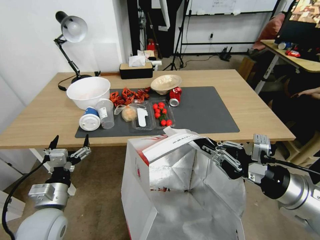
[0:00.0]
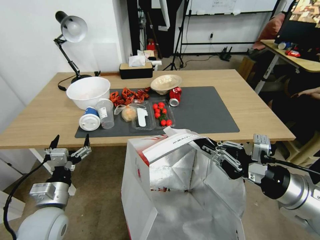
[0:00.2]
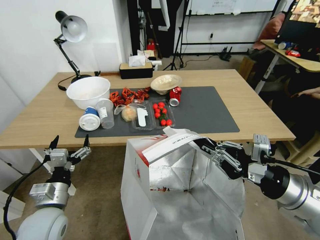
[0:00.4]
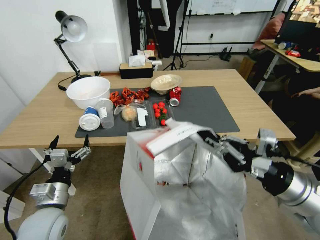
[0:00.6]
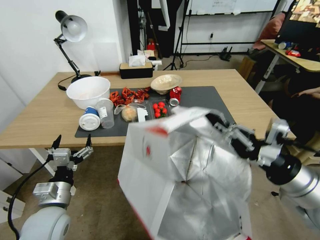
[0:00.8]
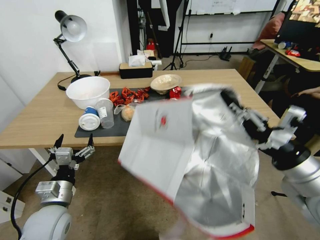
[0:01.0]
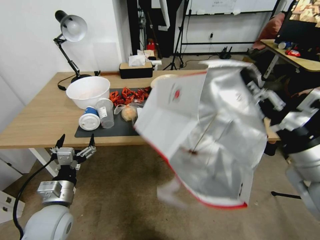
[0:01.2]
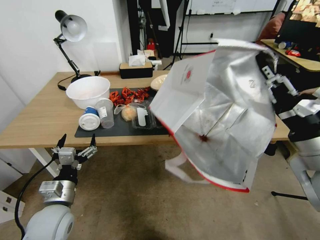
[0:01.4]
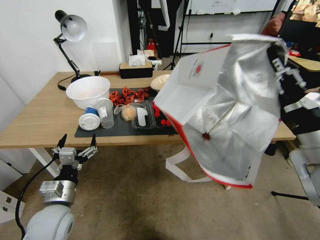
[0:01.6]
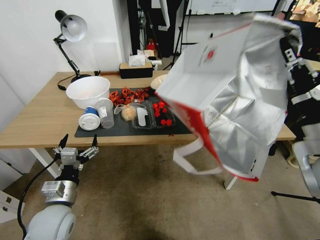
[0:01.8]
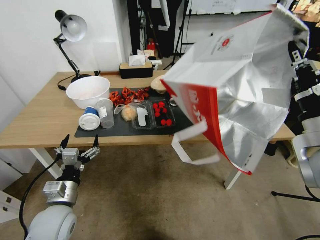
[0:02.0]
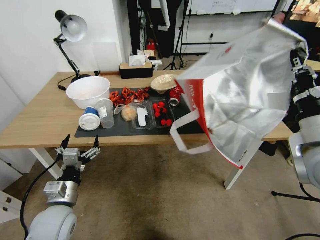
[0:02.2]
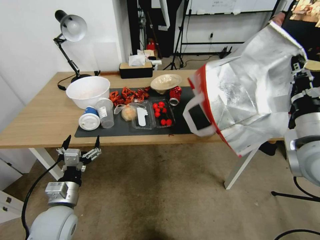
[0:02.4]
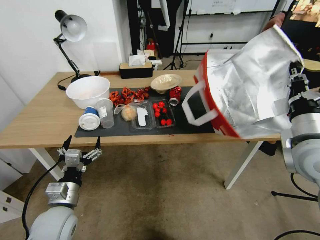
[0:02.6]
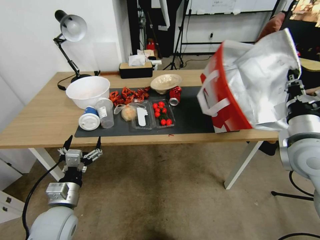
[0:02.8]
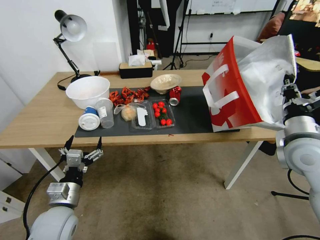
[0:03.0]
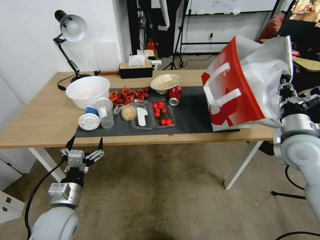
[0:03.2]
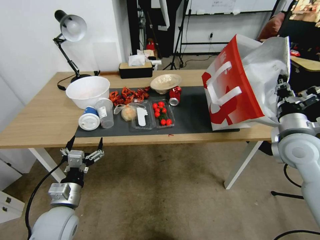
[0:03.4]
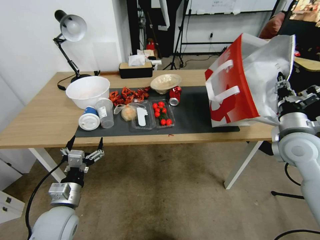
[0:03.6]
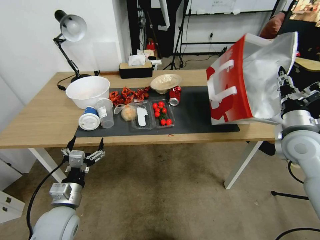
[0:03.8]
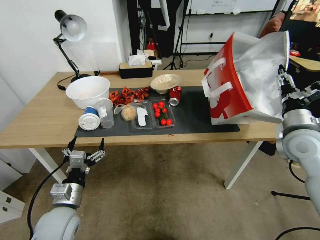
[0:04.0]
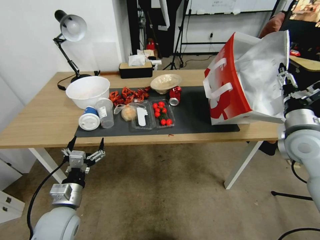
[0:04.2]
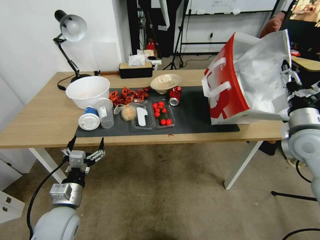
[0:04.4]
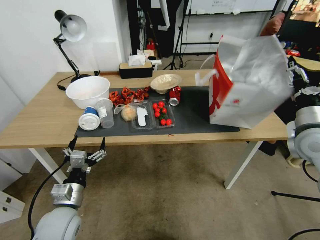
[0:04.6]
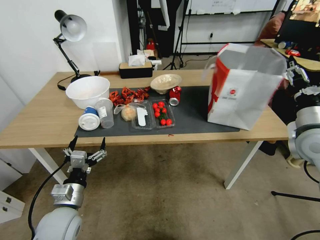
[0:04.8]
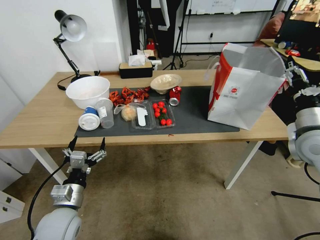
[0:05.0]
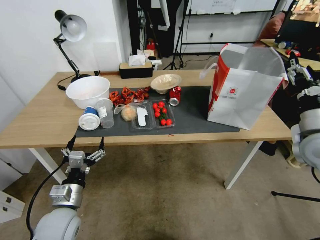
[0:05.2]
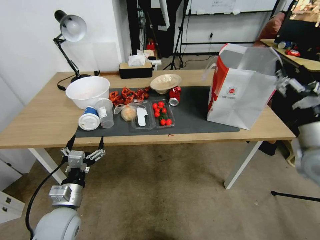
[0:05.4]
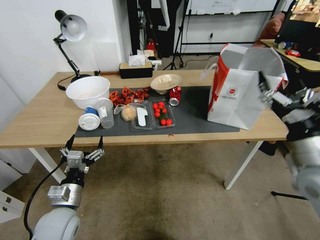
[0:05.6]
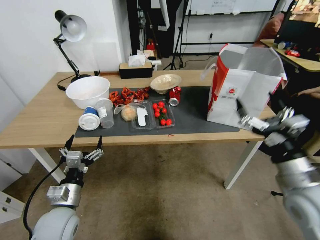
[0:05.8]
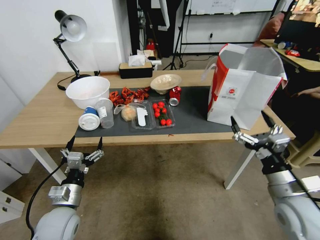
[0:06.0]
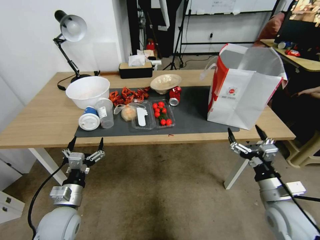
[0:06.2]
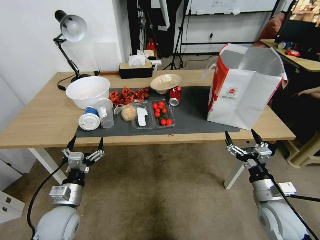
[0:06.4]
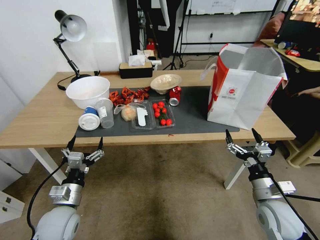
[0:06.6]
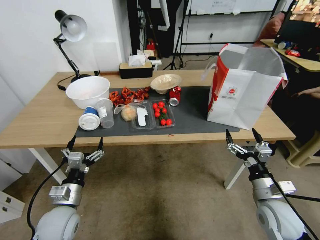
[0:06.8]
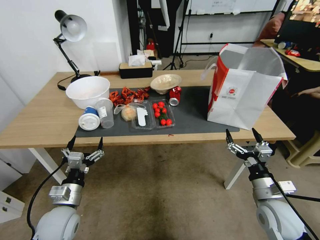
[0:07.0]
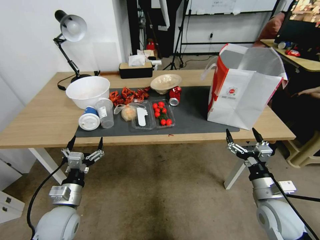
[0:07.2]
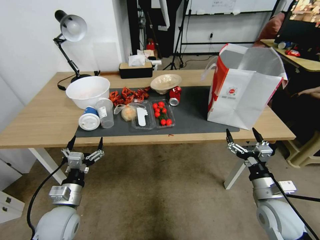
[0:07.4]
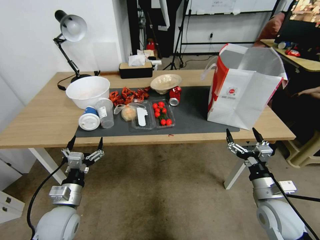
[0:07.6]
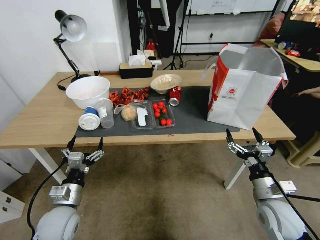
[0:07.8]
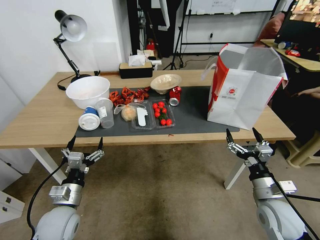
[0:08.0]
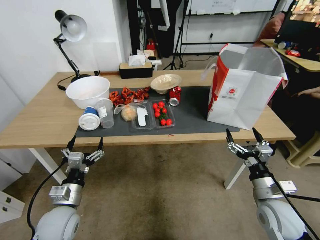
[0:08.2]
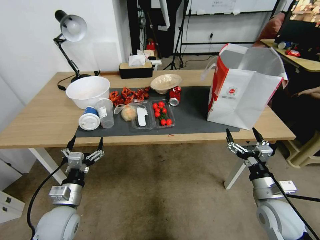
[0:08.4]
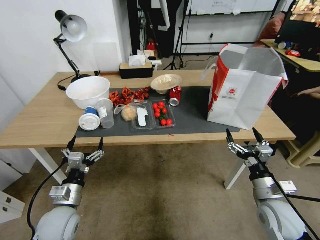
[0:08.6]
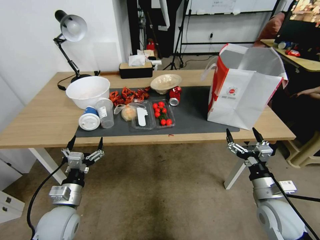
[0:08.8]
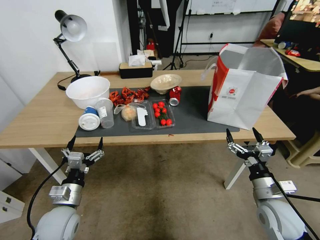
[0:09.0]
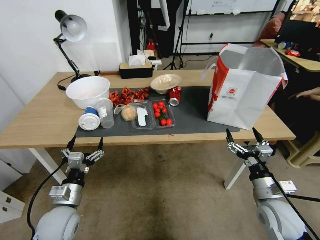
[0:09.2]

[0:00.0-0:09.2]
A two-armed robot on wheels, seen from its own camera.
Task of the whole recording: Pick up the food delivery bag from the floor and place it on the table.
0:00.0 to 0:01.6: The right gripper travels upward by roughly 5 cm.
0:01.6 to 0:03.0: The right gripper heads forward and downward, covering some 10 cm.
0:03.0 to 0:04.6: The right gripper opens up.
0:04.6 to 0:06.2: The right gripper travels downward and backward by approximately 20 cm.
0:06.2 to 0:07.6: There are only small adjustments of the grippers.
0:07.6 to 0:09.2: Both grippers stay about where they are.

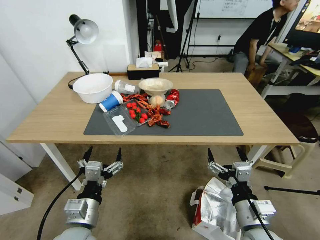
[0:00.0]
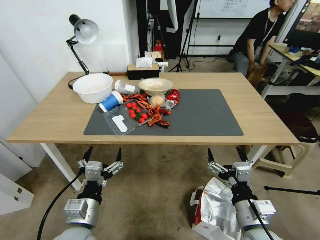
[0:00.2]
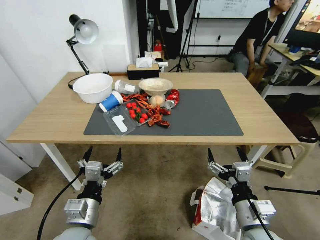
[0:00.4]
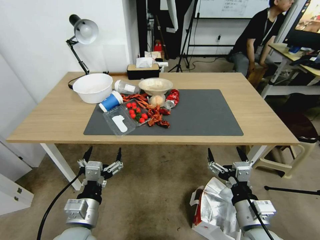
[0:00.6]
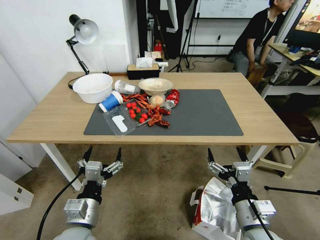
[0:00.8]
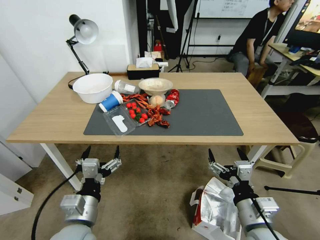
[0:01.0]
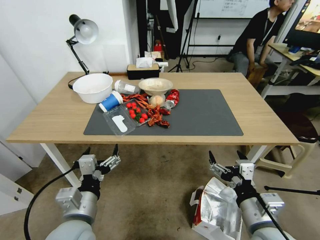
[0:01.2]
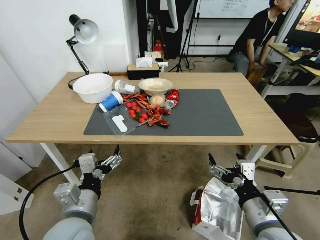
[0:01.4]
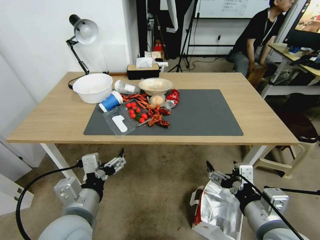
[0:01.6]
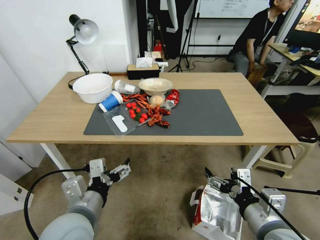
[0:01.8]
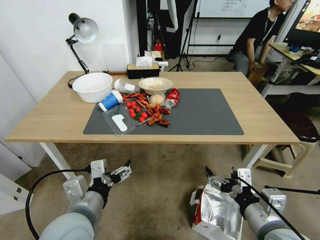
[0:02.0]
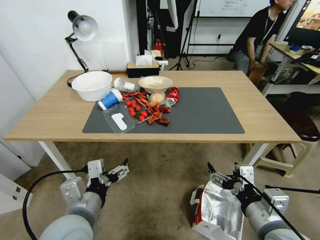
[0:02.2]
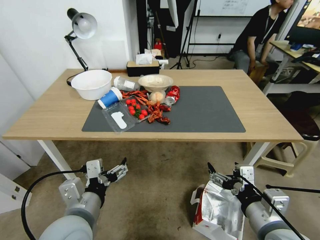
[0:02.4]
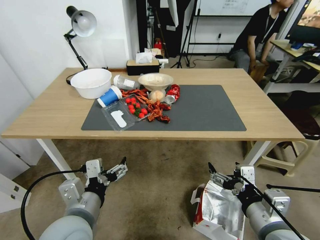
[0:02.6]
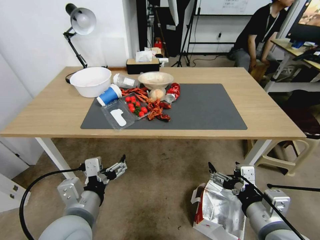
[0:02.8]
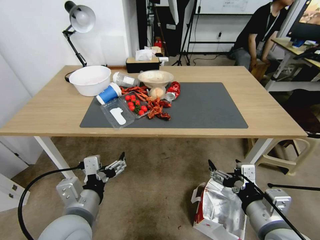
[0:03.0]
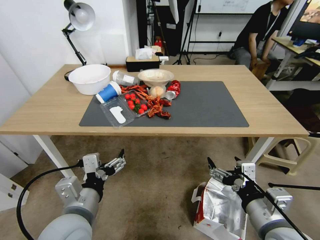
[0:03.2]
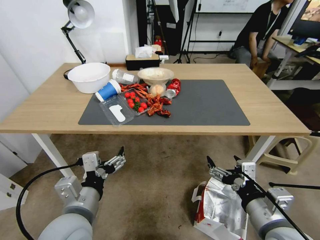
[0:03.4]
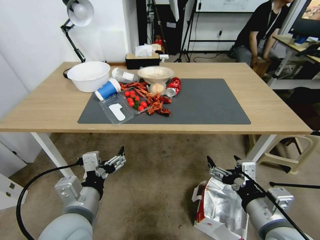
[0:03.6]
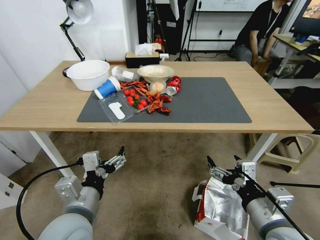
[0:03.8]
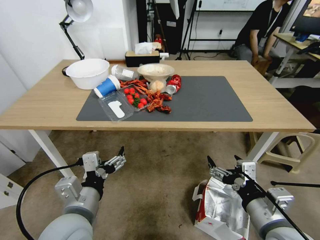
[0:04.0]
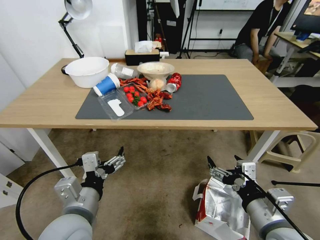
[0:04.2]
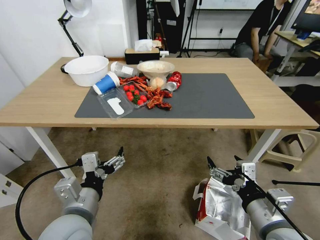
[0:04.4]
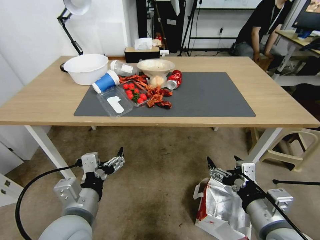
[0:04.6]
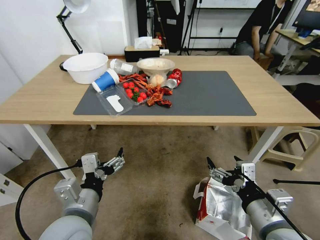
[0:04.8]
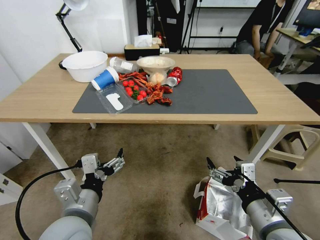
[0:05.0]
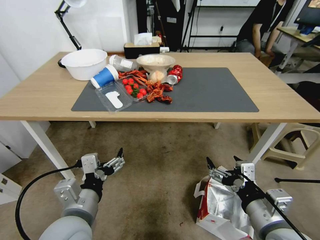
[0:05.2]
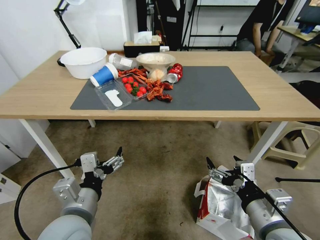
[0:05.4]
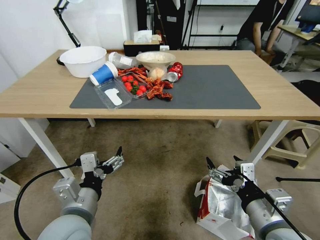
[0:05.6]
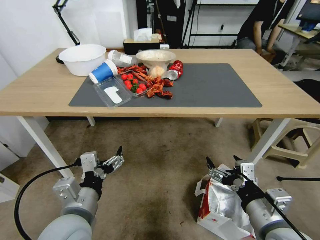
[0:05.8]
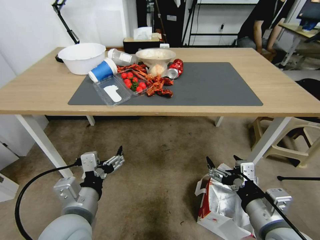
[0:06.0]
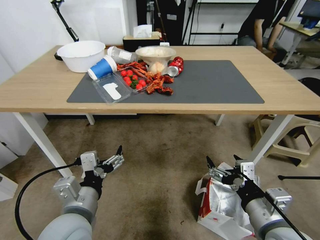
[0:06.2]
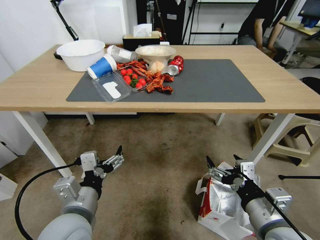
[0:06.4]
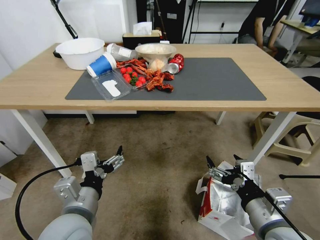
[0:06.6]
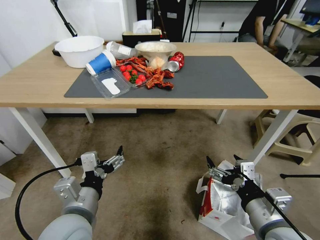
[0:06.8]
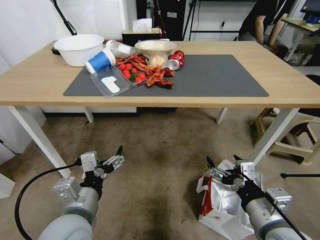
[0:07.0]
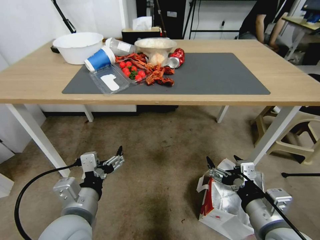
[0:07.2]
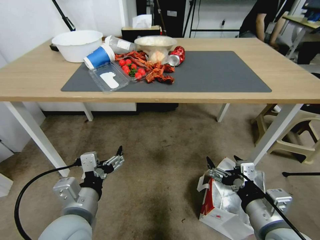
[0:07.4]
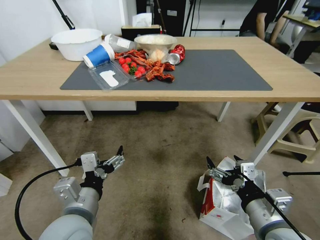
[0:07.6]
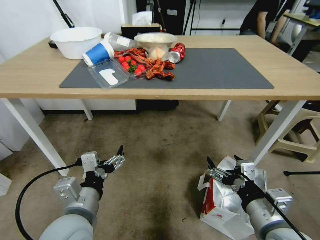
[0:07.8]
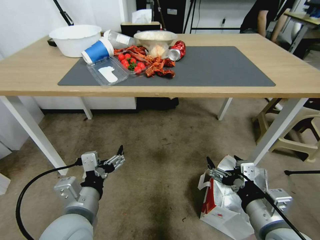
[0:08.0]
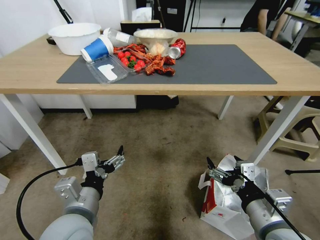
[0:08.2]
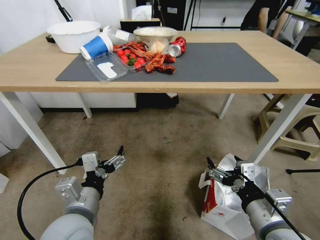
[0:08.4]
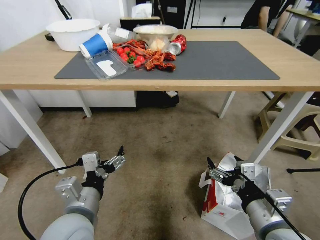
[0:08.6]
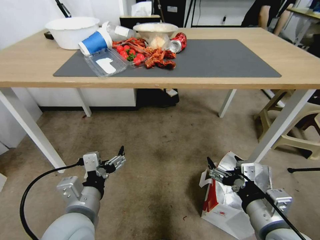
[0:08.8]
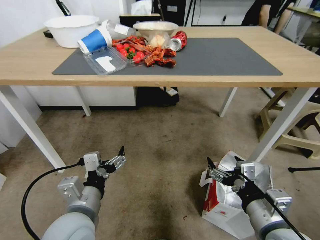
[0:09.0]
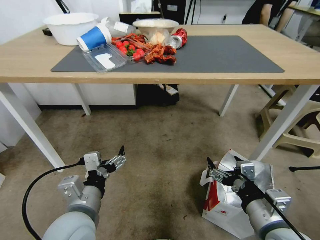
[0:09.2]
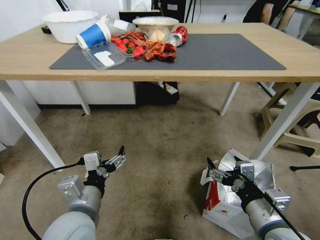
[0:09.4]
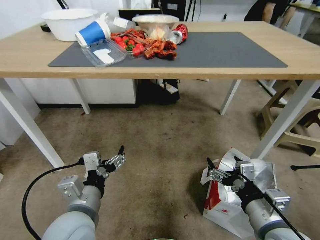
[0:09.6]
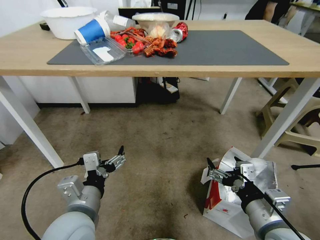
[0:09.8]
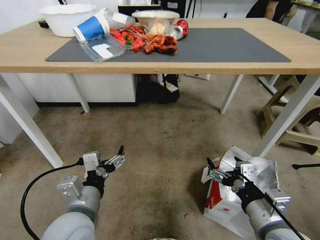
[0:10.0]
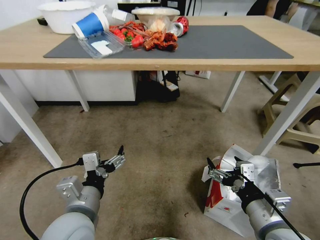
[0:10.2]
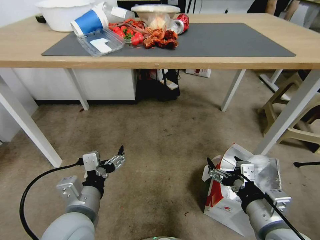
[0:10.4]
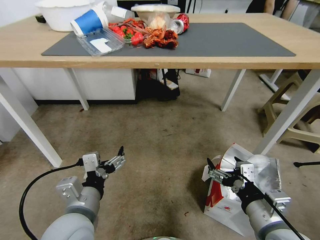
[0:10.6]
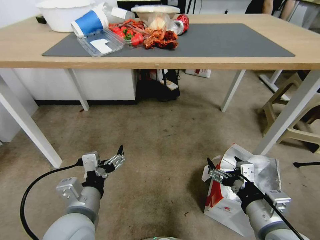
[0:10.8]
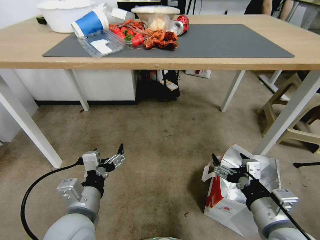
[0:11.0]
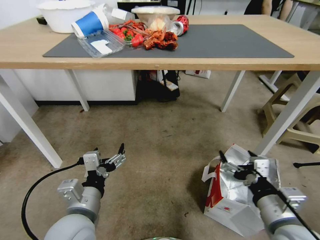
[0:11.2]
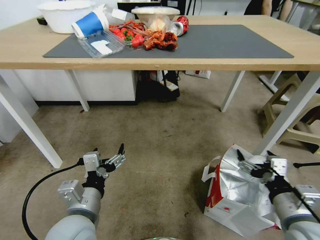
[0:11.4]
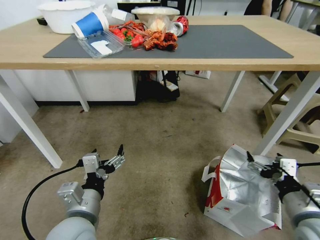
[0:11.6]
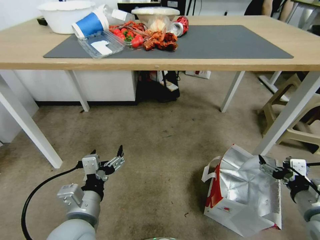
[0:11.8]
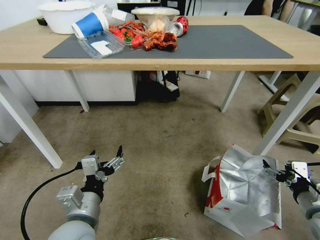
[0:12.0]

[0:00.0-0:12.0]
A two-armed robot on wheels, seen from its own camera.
Task of the whole recording: Pick up the food delivery bag from the floor and place it on the table.
0:10.4 to 0:12.0: The right gripper travels to the right by about 15 cm.

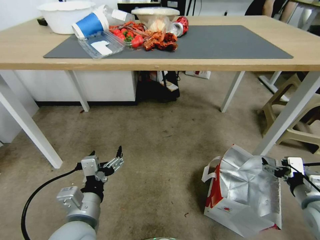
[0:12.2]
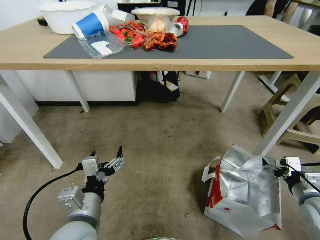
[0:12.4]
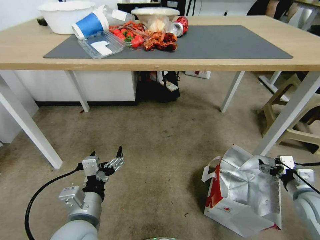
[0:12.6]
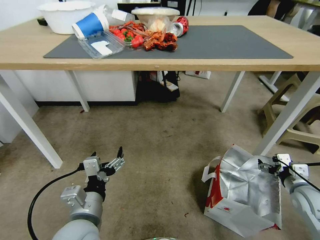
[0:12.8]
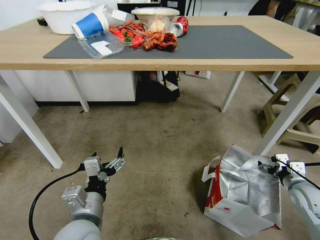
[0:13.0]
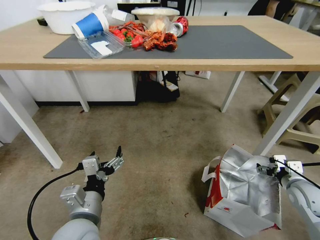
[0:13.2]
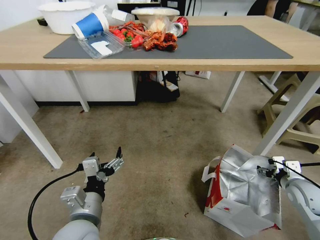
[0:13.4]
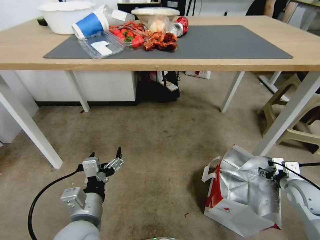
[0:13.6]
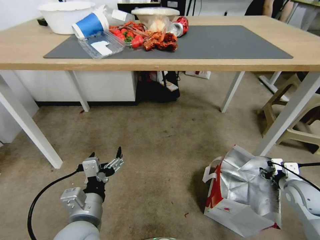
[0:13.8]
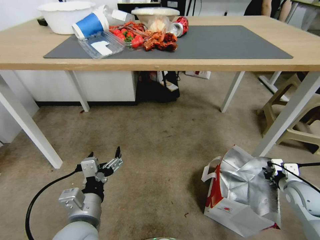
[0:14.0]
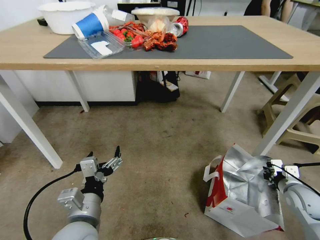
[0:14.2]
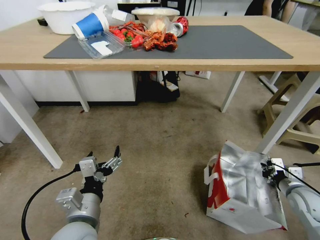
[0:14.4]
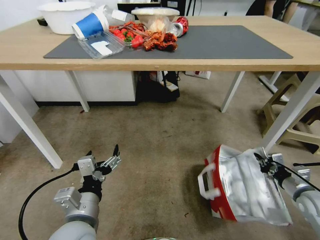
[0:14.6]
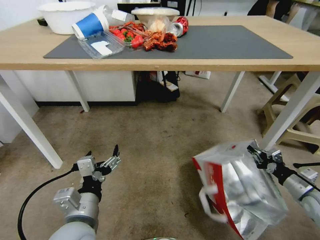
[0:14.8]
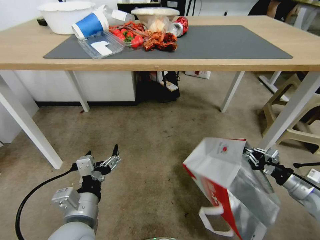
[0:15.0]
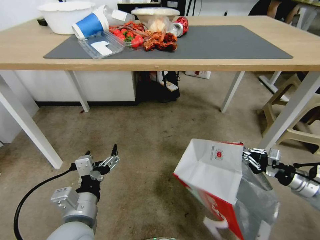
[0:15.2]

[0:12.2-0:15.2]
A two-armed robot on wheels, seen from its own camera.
Task of the whole recording: Pick up the food delivery bag from the floor and place it on the table.
0:12.2 to 0:13.8: The right gripper is displaced forward and downward by roughly 10 cm, and closes up.
0:13.8 to 0:15.2: The right gripper shifts by about 5 cm, and closes.
